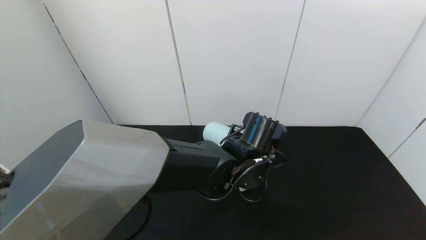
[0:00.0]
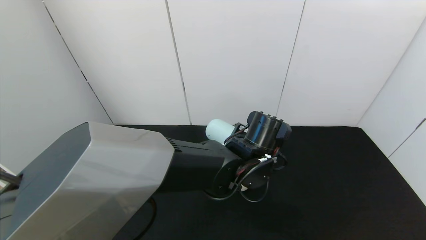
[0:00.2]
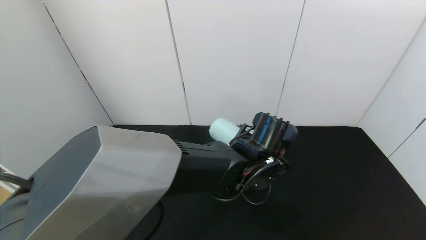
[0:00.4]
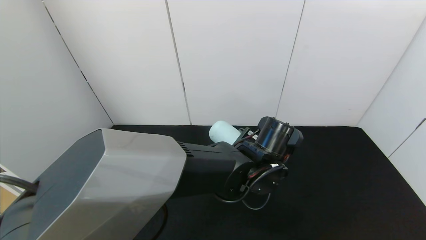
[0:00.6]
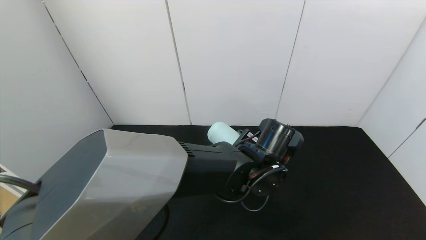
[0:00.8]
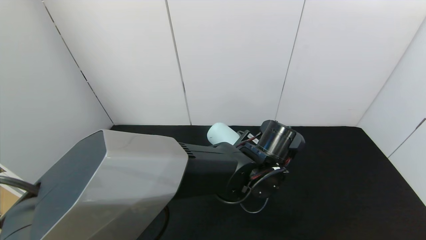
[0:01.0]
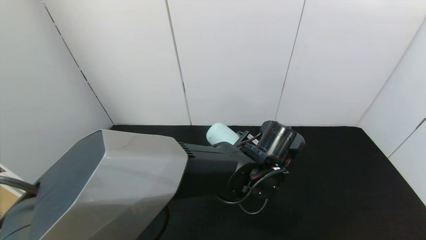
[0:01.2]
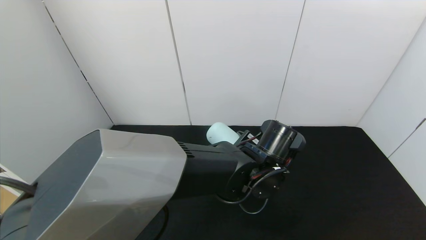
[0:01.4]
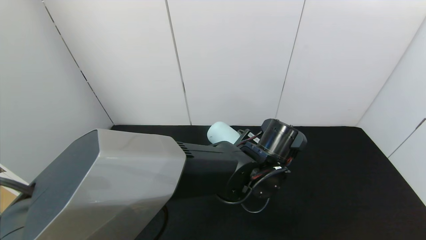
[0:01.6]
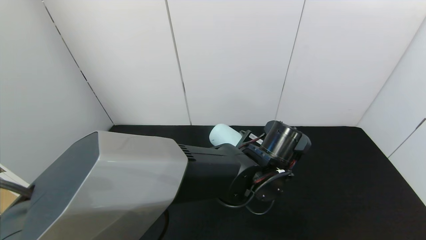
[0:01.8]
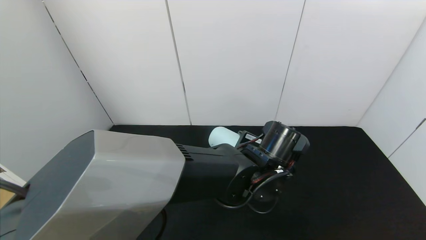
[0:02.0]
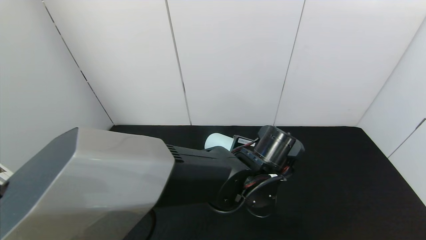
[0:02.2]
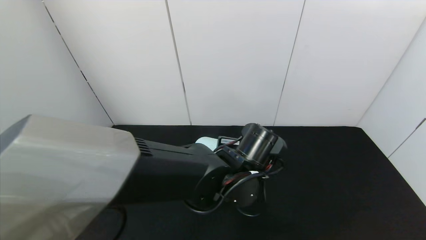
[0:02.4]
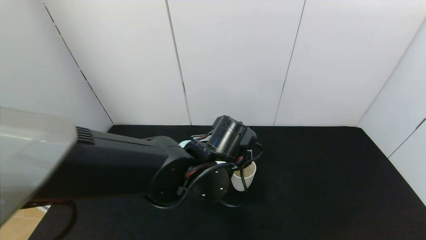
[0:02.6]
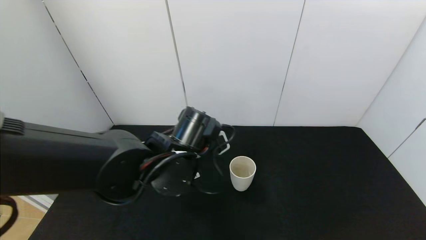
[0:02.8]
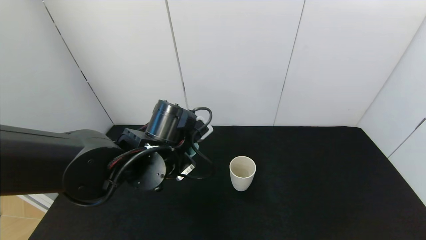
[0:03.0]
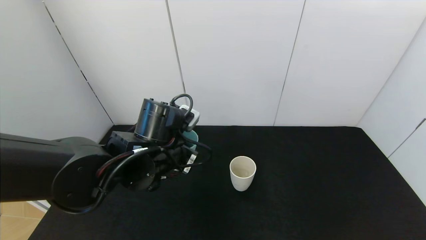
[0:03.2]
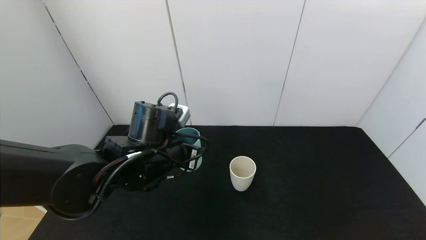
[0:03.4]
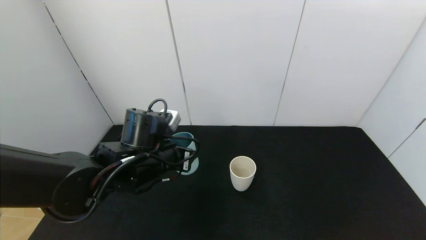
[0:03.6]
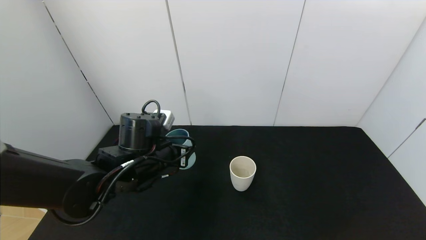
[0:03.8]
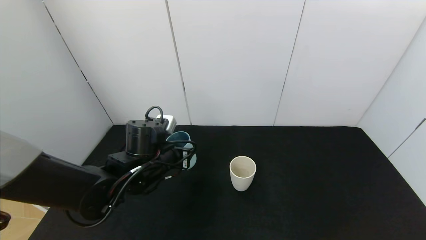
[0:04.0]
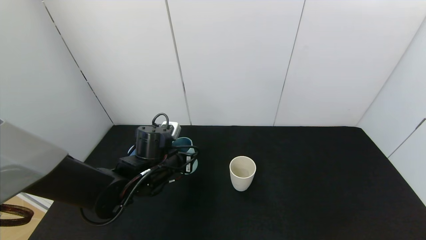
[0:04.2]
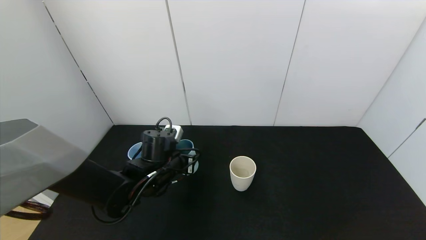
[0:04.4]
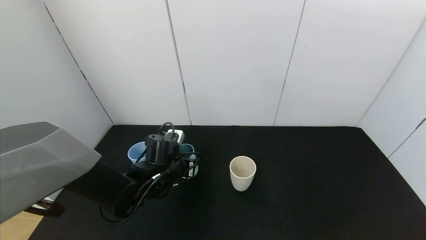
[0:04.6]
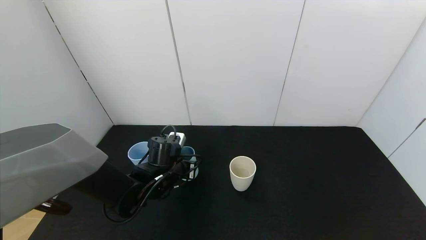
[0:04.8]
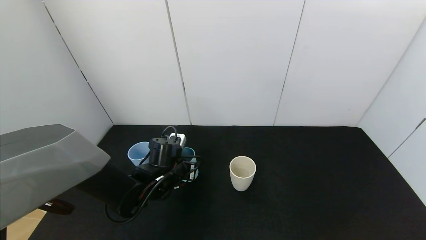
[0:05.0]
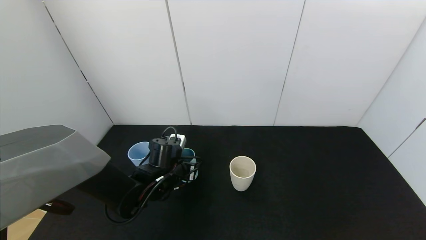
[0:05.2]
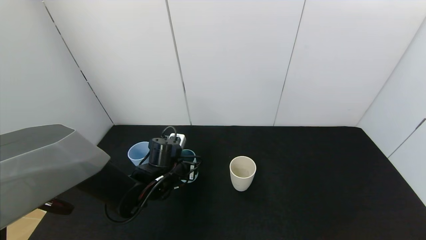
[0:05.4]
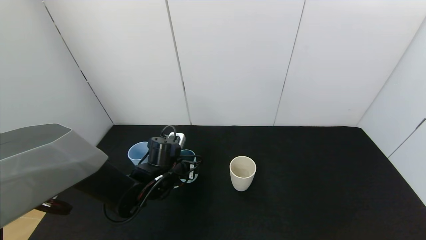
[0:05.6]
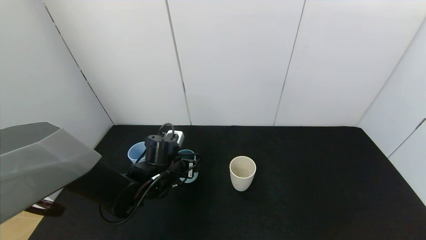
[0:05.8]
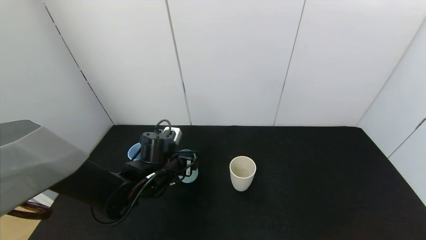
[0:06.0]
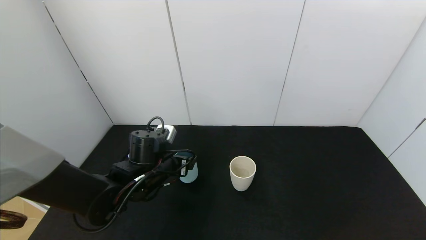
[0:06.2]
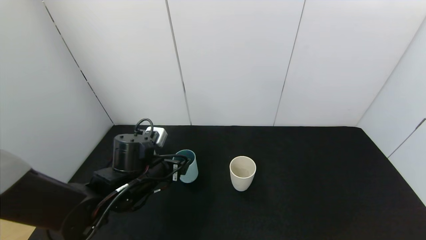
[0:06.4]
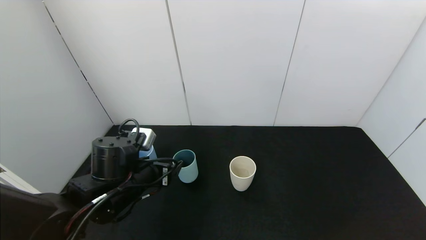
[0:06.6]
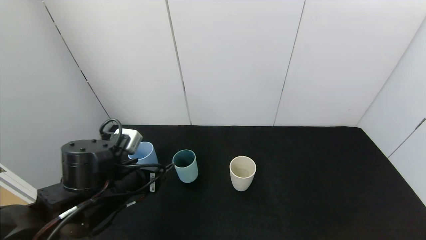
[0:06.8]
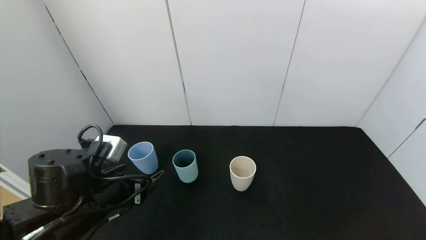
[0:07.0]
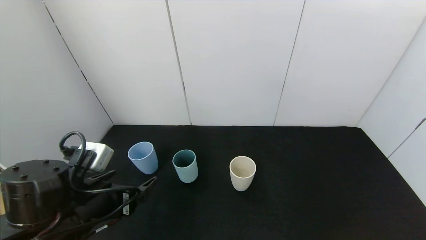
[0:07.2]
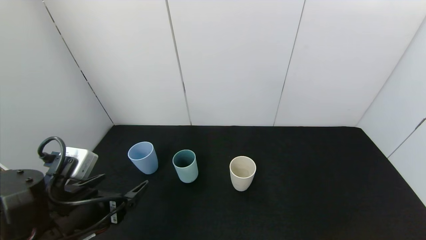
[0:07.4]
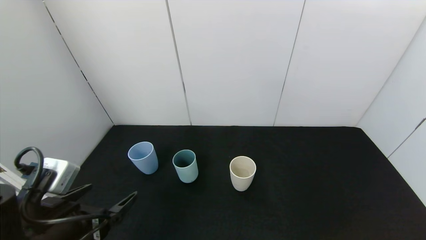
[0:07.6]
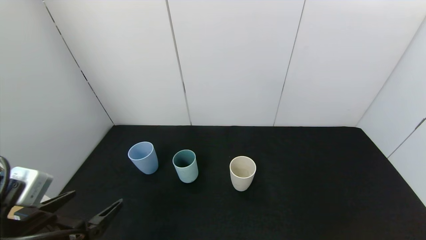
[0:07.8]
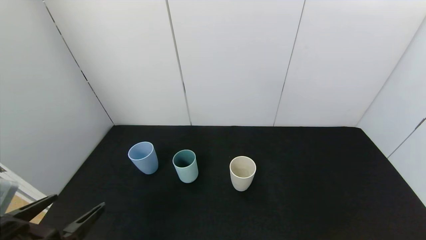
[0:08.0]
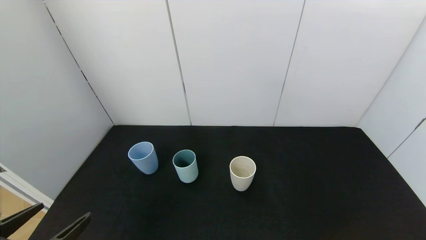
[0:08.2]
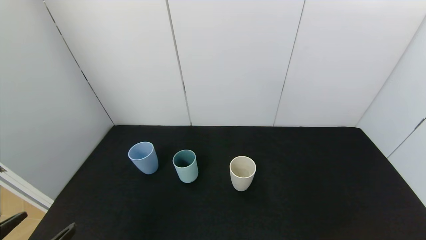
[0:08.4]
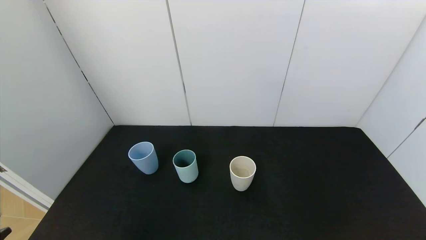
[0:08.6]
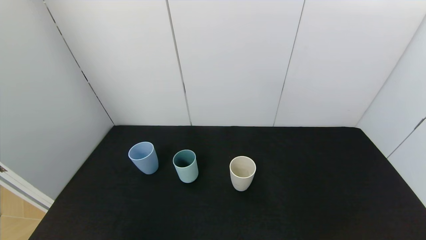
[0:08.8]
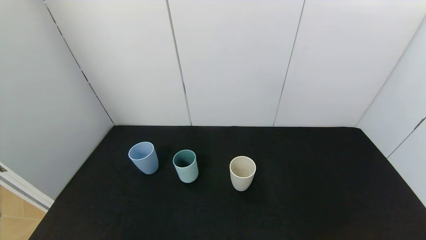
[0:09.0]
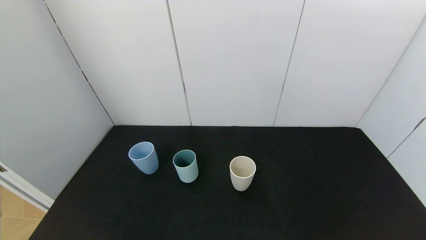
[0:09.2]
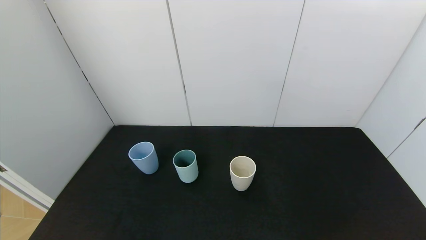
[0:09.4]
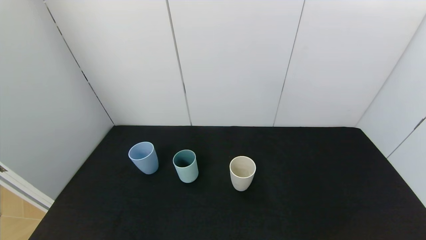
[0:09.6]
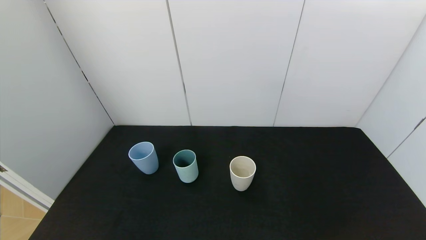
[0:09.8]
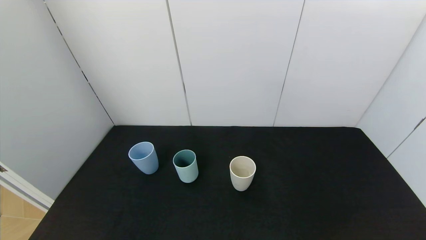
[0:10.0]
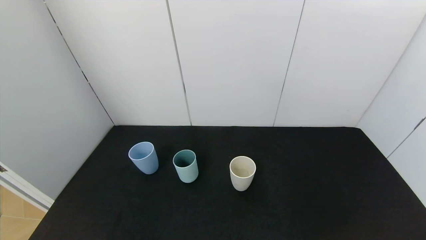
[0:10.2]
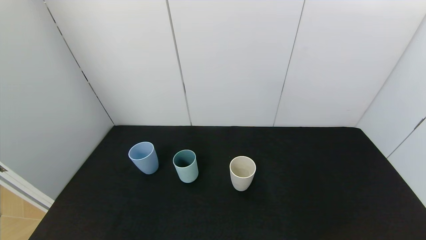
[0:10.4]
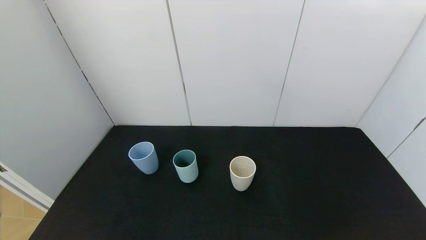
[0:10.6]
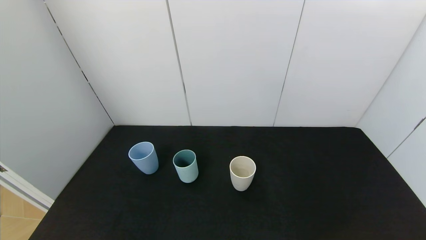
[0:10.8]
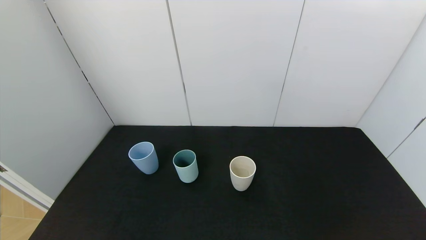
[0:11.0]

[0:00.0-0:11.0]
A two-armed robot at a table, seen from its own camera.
Task of the whole recording: use the gripper to pour the water into the other two cups on black table.
Step, 0:01.6 to 0:06.0: Place the green cup with the left gripper.
0:00.0 to 0:01.6: The grippers stay close to where they were, moving slightly.
0:01.6 to 0:03.2: The left gripper shifts some 15 cm to the left.
0:03.2 to 0:04.8: The left gripper heads downward and forward, covering some 15 cm.
0:04.8 to 0:06.2: The left gripper ends up roughly 5 cm from where it was, and opens.
0:06.2 to 0:07.8: The left gripper heads backward and to the left, covering about 20 cm.
0:07.8 to 0:09.4: The left gripper is displaced backward and downward by approximately 15 cm.
0:09.4 to 0:11.0: The two grippers keep their place.

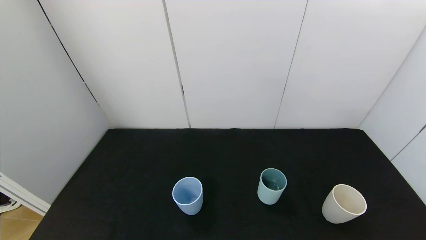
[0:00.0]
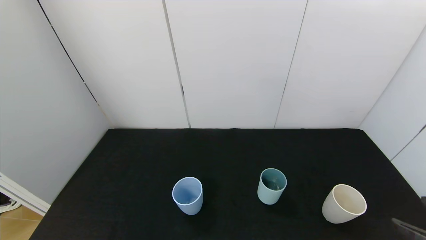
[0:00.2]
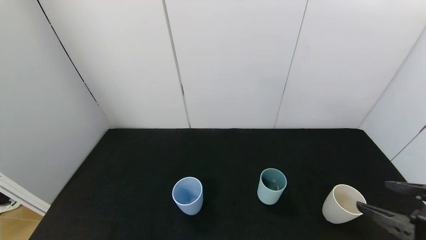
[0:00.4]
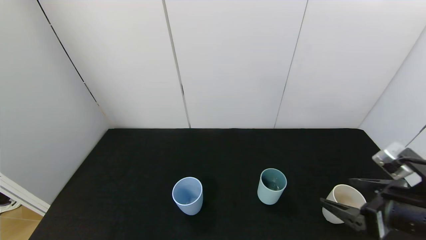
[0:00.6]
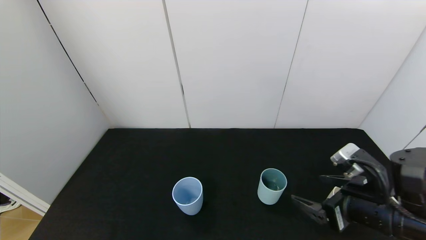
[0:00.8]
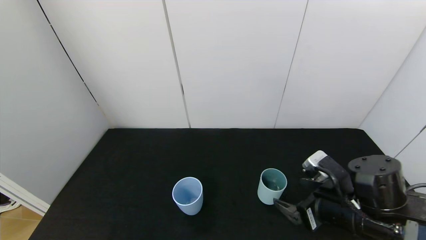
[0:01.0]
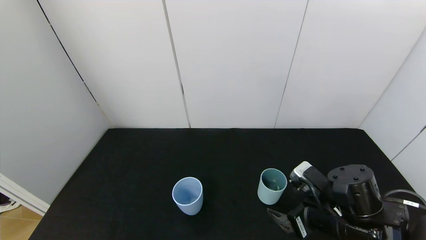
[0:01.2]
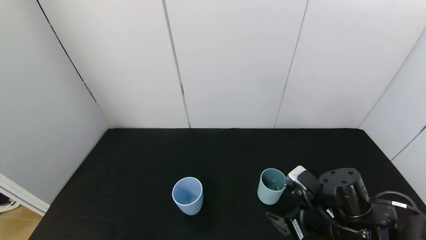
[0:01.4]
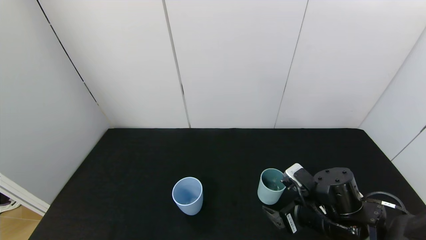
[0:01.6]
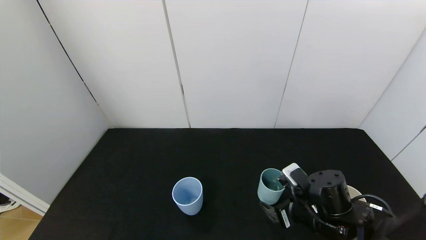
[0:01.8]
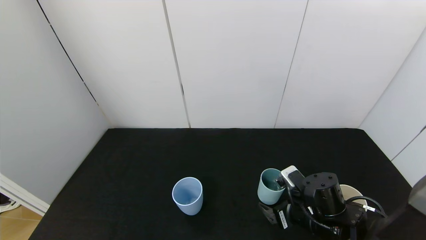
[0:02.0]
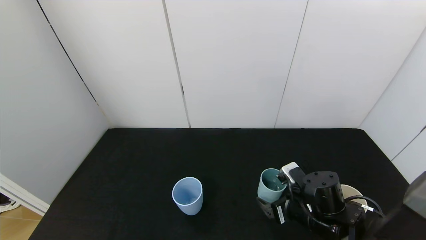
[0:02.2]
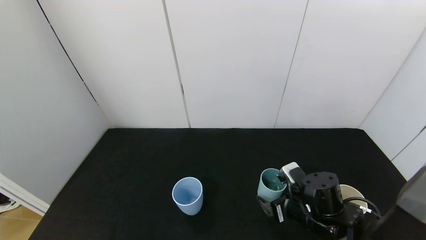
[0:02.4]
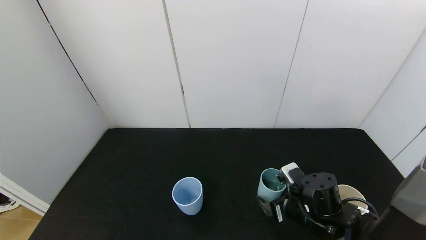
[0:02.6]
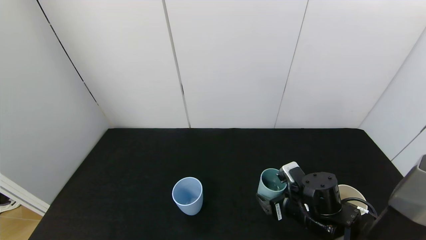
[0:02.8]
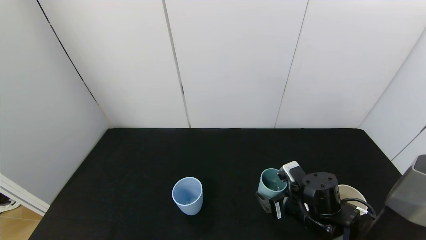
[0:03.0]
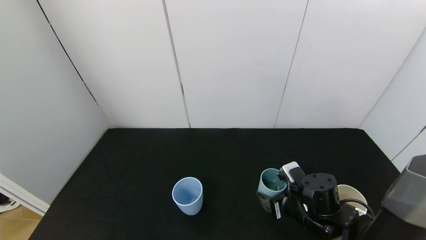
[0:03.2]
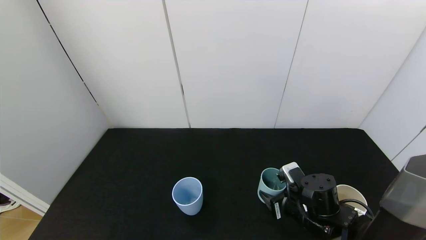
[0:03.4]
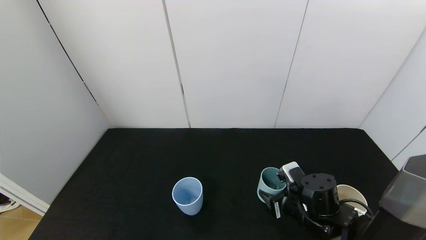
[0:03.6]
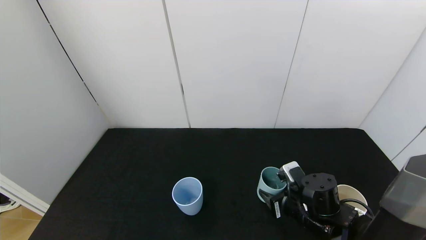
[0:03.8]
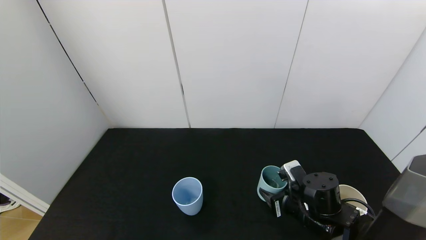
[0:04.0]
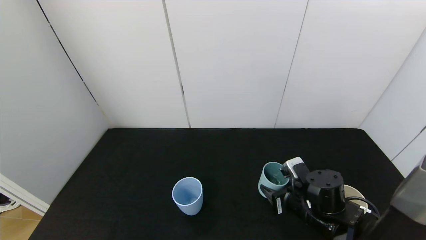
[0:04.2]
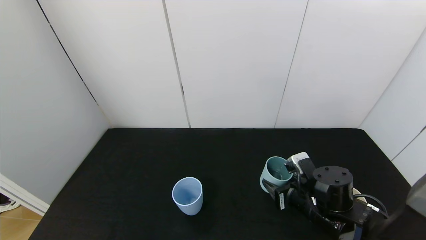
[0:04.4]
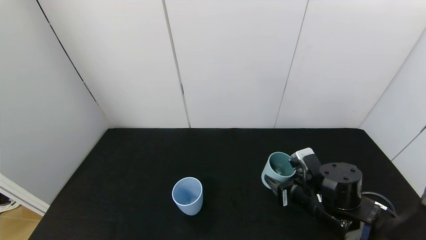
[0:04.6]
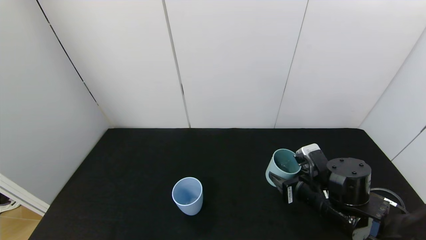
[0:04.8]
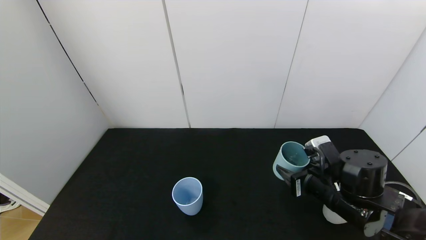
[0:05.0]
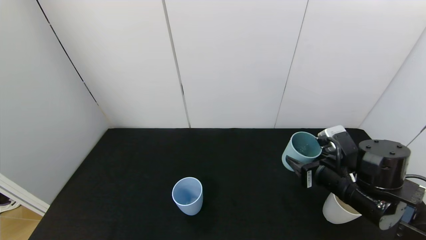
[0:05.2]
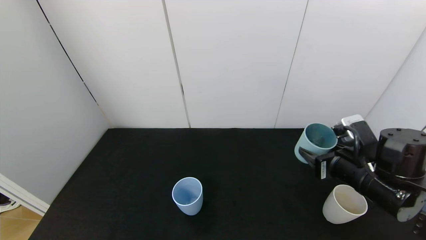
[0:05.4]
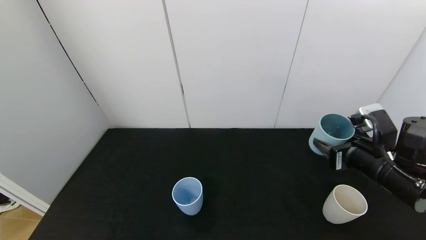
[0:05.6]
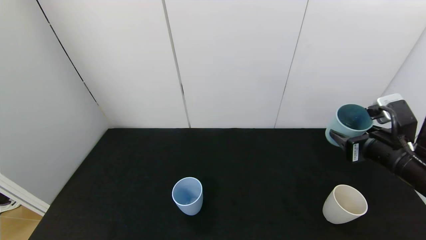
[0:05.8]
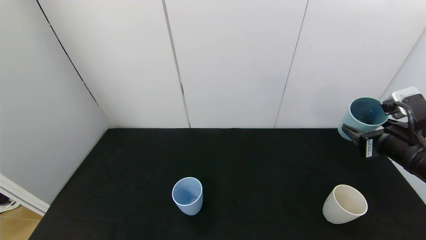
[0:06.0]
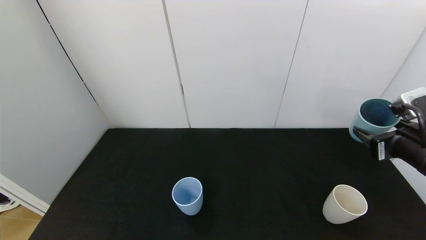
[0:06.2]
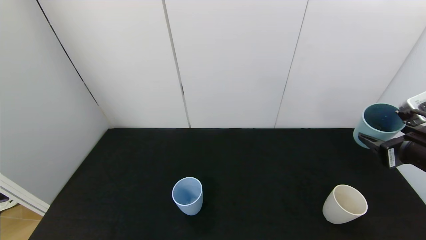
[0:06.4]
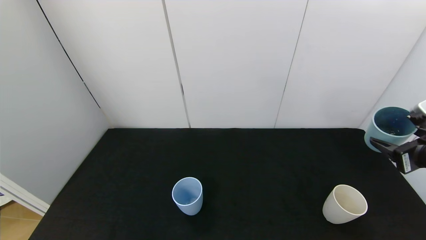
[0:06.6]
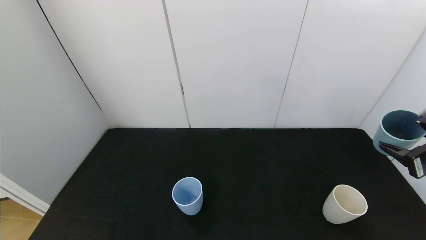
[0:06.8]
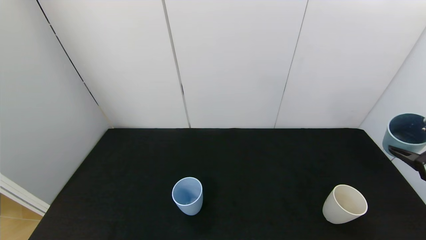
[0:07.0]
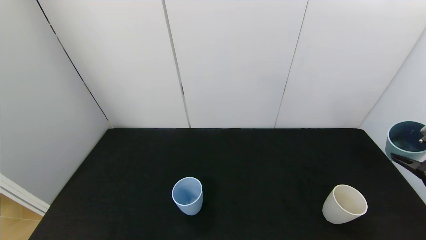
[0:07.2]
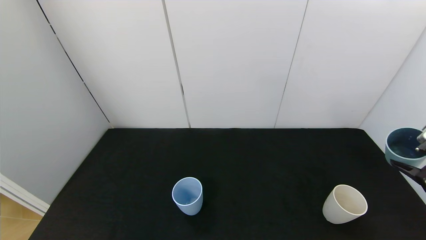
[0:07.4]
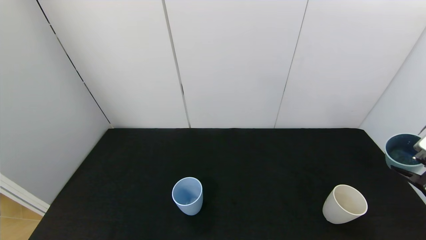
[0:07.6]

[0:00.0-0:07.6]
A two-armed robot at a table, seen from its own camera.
Task of the whole recording: use the gripper to pour the water into the other two cups on black table.
Step, 0:00.0 to 0:03.8: Grasp the green cup with the right gripper.
0:00.0 to 0:01.6: The right gripper moves forward, to the left and downward, approximately 25 cm.
0:01.6 to 0:03.0: The grippers move only a little.
0:03.0 to 0:04.6: The right gripper closes up.
0:04.6 to 0:06.0: The right gripper heads to the right and upward, covering about 15 cm.
0:06.0 to 0:07.6: The right gripper travels to the right and backward by approximately 10 cm.
